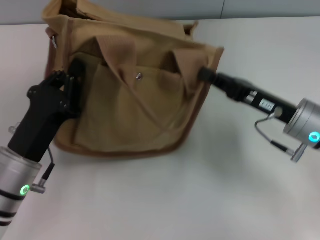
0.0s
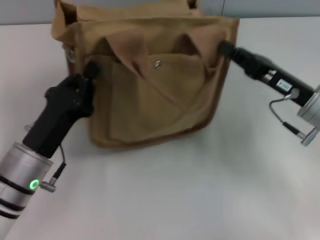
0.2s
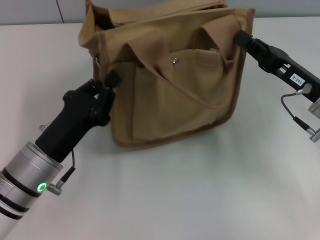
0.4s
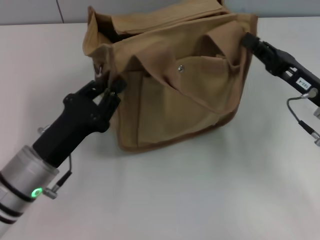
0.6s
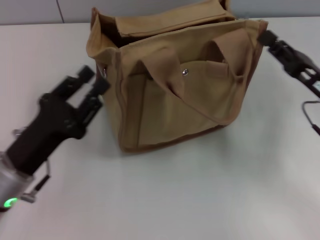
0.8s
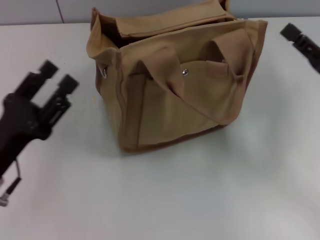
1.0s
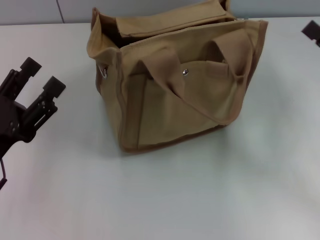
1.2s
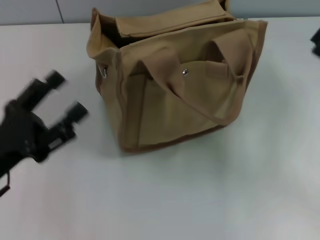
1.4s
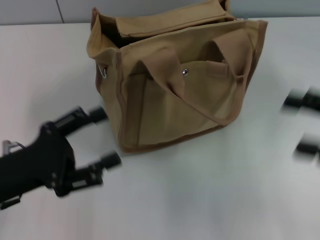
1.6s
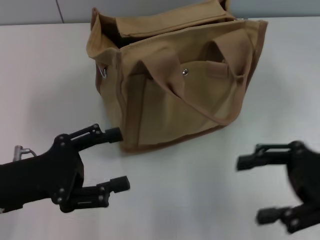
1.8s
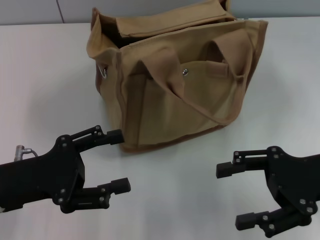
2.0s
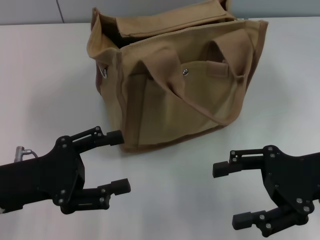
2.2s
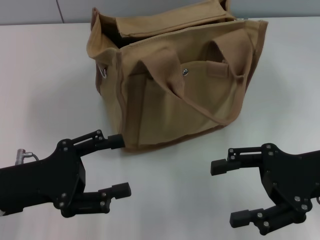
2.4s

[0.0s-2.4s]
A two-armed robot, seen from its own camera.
0.0s to 1.2s: The right gripper shifts about 10 cm to the right, and opens its fingers. Meanwhile the left gripper shifts roughly 5 cm to the left, and opens up.
1.2s to 2.4s: The right gripper shifts roughly 5 cm to the left, and opens up.
